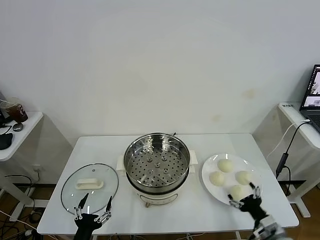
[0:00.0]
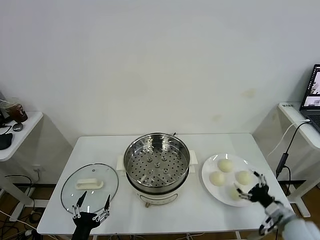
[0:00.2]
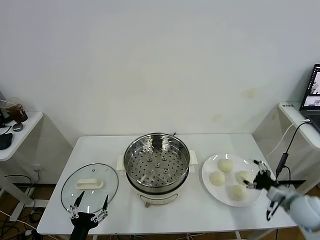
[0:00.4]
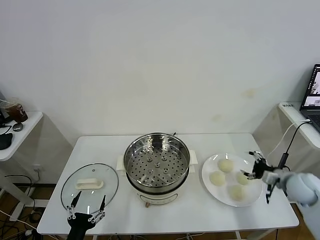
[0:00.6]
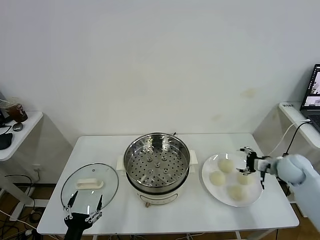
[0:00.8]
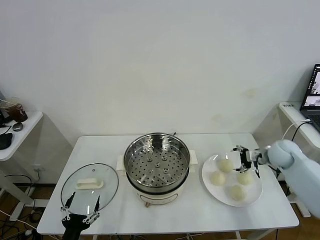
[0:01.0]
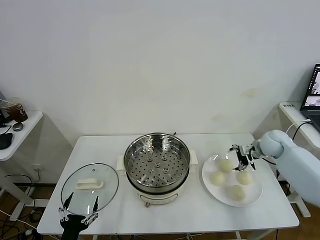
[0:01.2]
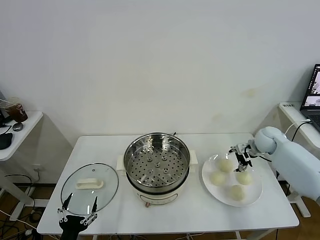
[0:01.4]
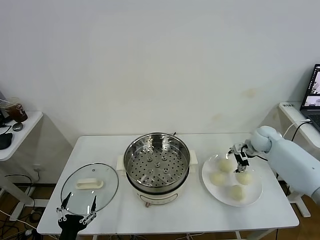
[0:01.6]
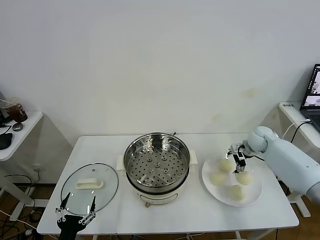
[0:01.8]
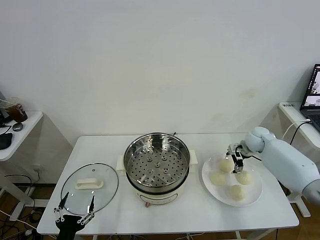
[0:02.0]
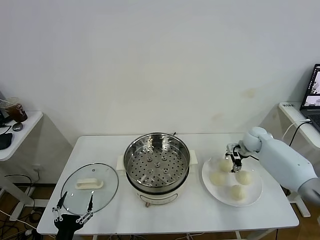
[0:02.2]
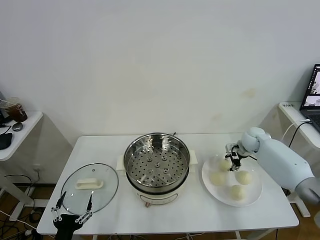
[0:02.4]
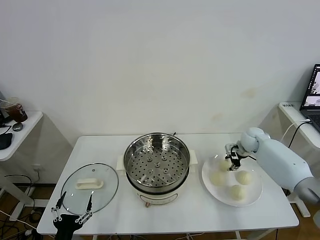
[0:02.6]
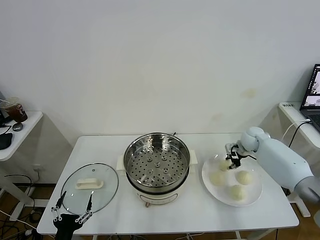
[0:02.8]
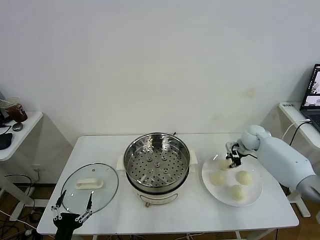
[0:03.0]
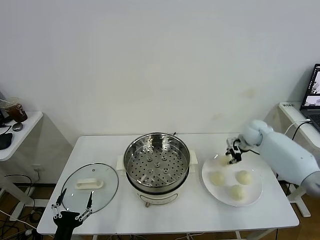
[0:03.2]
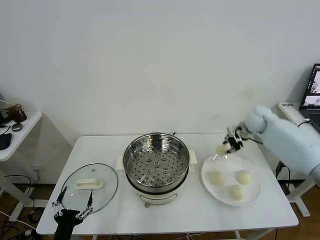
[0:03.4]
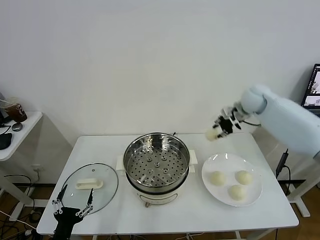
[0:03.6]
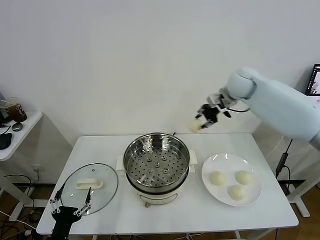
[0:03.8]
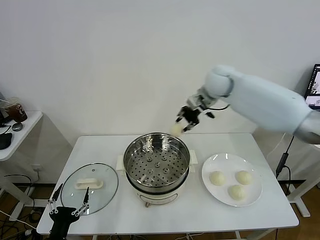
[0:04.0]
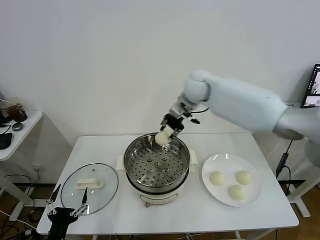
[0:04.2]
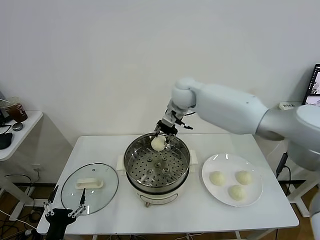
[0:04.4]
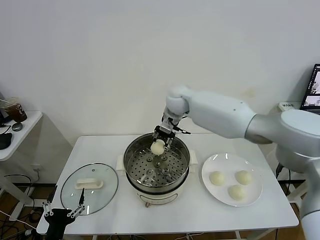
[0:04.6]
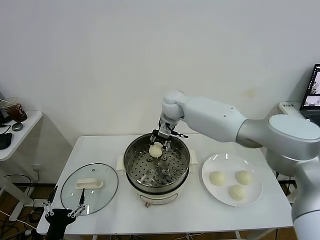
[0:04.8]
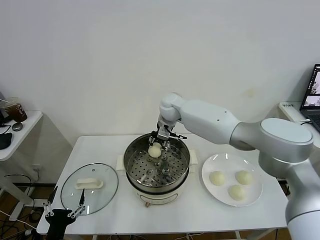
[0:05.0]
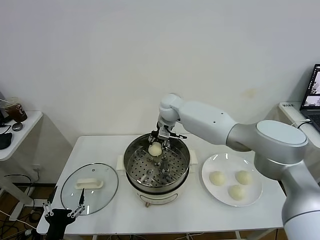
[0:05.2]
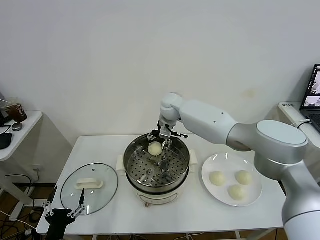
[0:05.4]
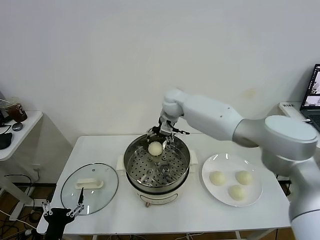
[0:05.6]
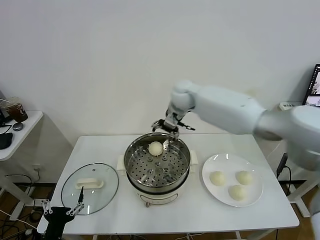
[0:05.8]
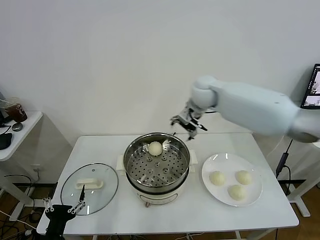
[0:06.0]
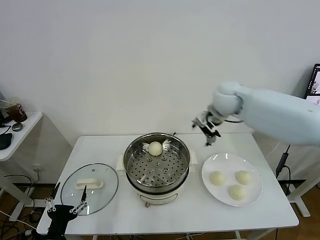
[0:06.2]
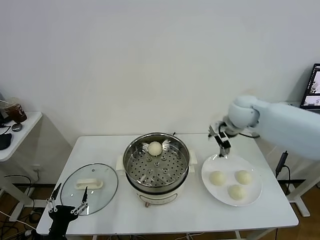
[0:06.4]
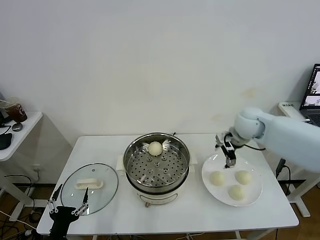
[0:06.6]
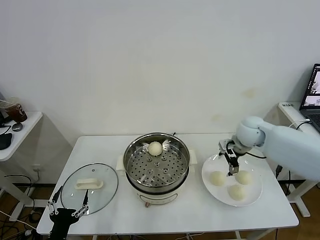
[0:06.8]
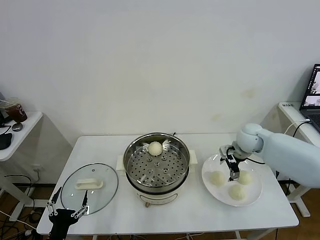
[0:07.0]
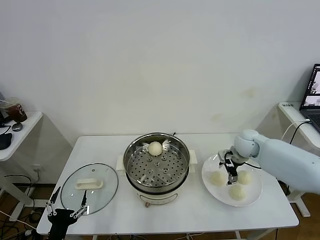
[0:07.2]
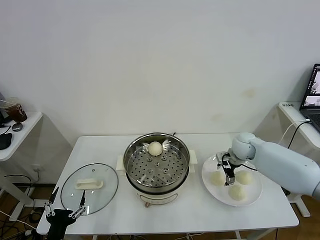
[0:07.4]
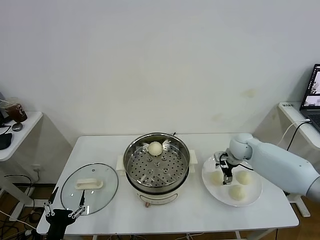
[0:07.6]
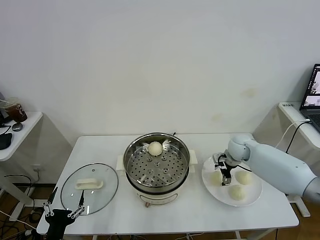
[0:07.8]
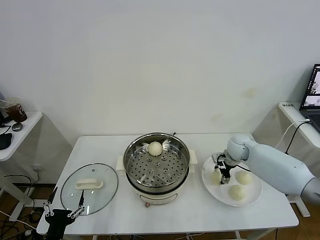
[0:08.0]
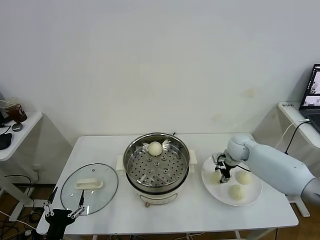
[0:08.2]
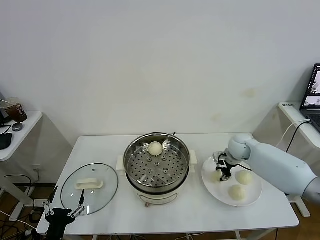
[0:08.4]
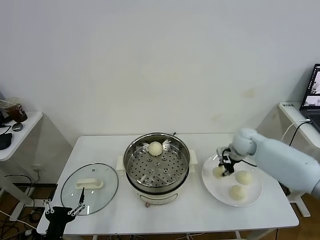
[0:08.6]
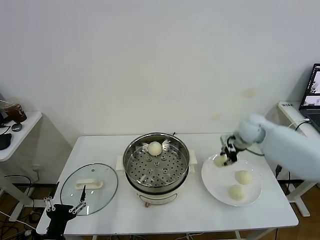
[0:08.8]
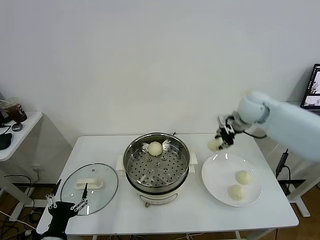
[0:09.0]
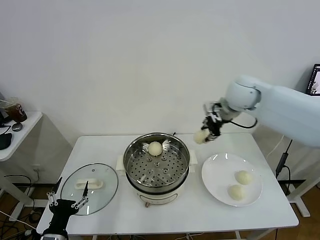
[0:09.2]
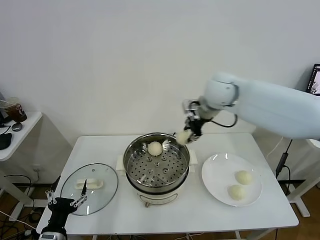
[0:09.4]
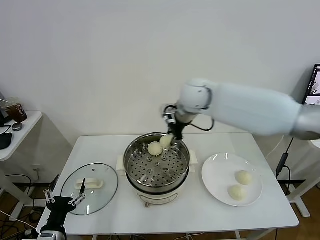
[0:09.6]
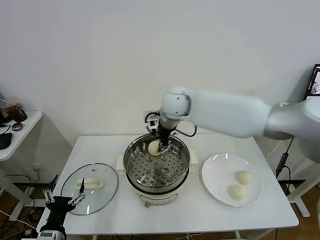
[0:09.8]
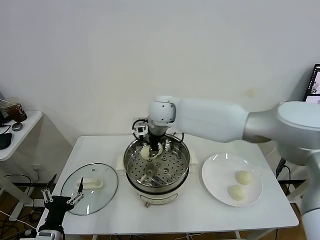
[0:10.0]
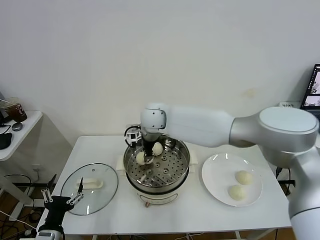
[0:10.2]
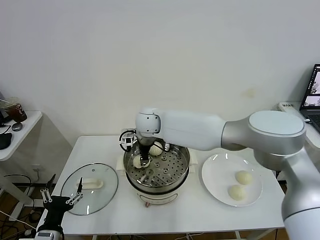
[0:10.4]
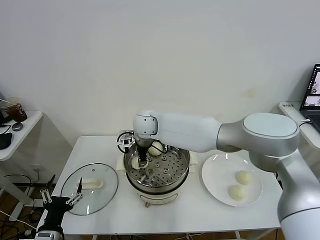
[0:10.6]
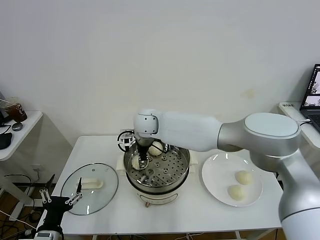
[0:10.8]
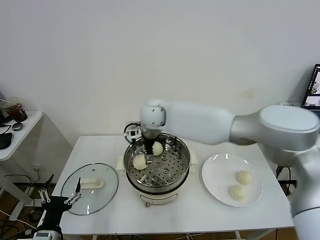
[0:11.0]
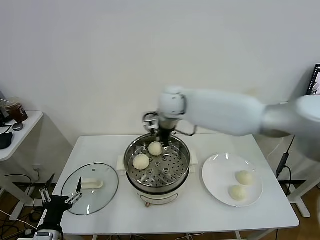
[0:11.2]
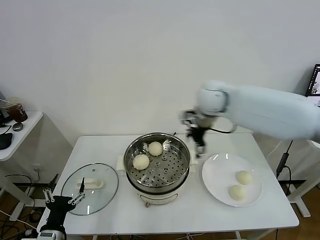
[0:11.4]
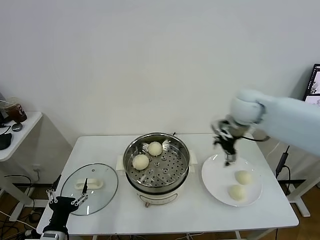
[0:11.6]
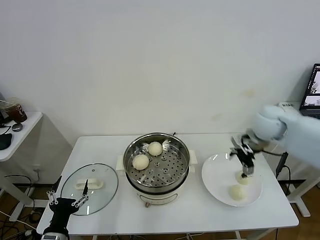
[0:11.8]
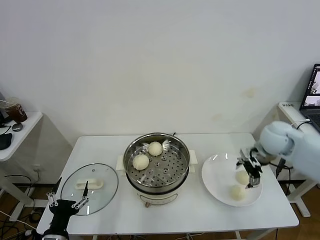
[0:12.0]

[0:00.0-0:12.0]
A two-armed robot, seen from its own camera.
Task of the whole recording: take steamed baozi put them in steamer.
Step, 0.0 to 2.6 s: Grasp the baozi in the plate with right gripper.
Step, 2.8 to 5.6 s: Place the baozi on the steamer with right gripper.
Step, 5.8 to 8.4 s: Grasp the baozi in the plate with right gripper.
Step, 8.6 to 10.8 s: Place the baozi on the steamer with right gripper.
1.6 to 3.0 s: The right gripper closes.
3.0 to 4.4 s: The right gripper heads to the left and upward, covering about 35 cm.
4.4 to 6.0 s: The right gripper heads to the right, covering about 10 cm, and opens its fingers.
6.0 to 7.6 s: The right gripper travels downward and to the right by roughly 25 cm.
7.6 to 9.0 s: The right gripper moves upward, roughly 20 cm, and closes up.
9.0 to 10.4 s: The right gripper is displaced to the left by roughly 30 cm.
10.4 to 12.0 s: The right gripper is displaced to the right by about 40 cm, and opens up.

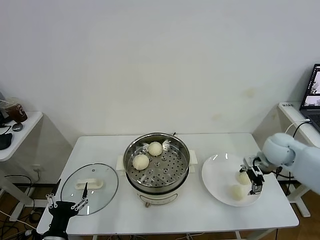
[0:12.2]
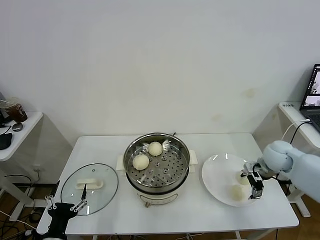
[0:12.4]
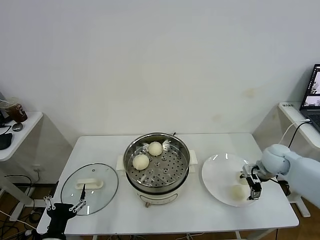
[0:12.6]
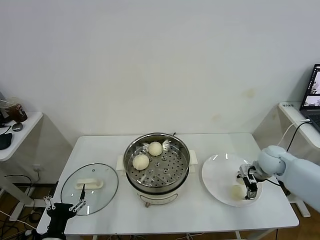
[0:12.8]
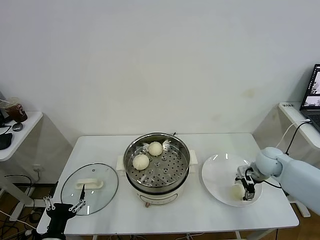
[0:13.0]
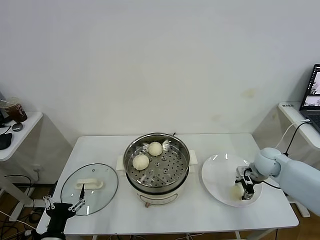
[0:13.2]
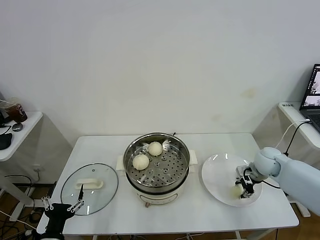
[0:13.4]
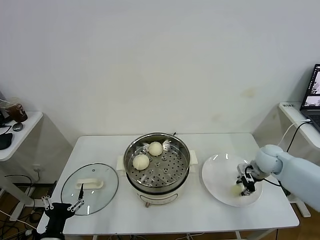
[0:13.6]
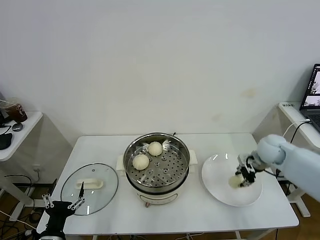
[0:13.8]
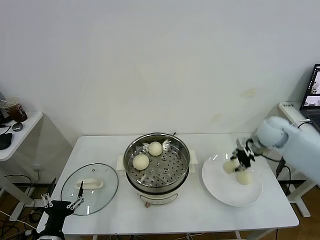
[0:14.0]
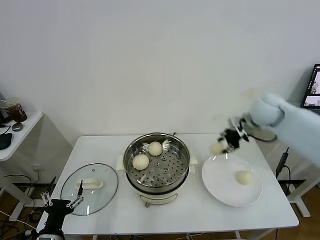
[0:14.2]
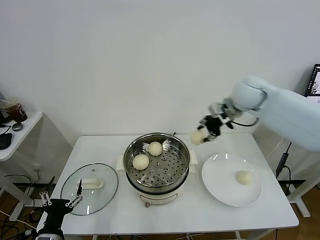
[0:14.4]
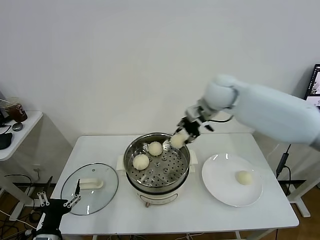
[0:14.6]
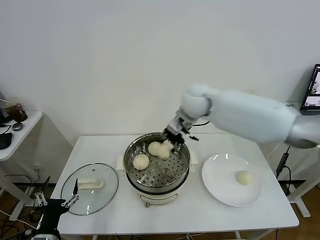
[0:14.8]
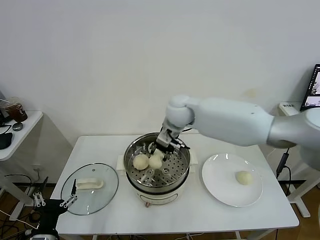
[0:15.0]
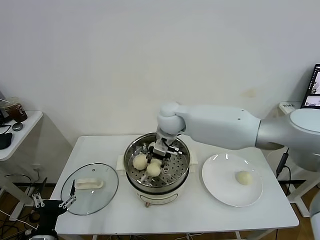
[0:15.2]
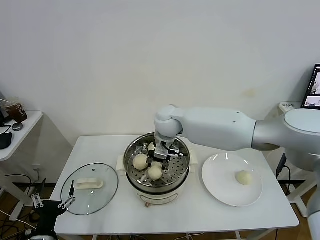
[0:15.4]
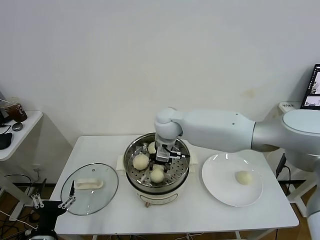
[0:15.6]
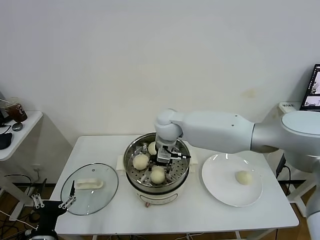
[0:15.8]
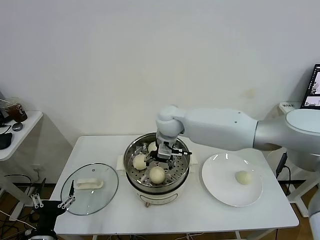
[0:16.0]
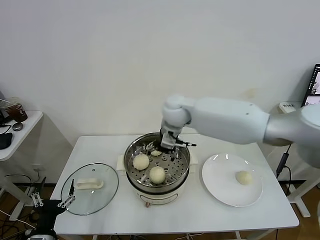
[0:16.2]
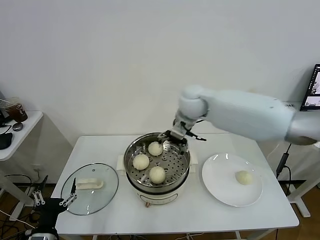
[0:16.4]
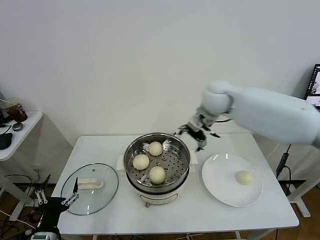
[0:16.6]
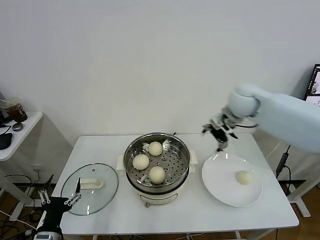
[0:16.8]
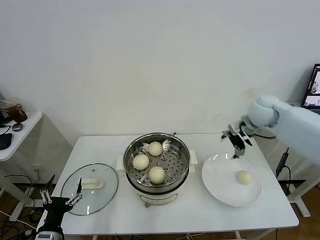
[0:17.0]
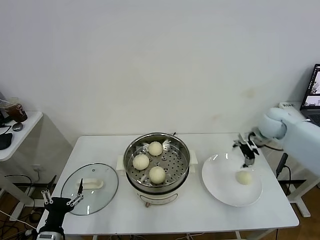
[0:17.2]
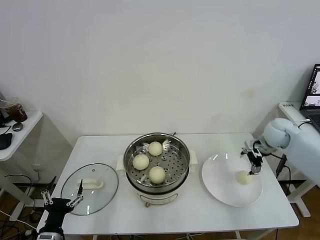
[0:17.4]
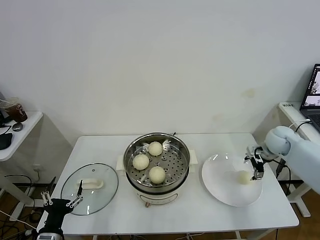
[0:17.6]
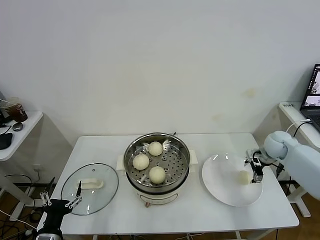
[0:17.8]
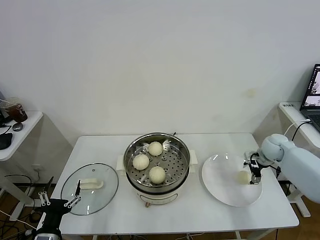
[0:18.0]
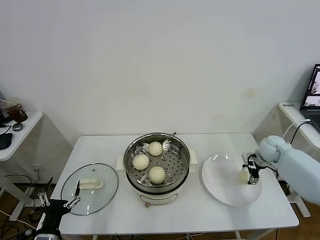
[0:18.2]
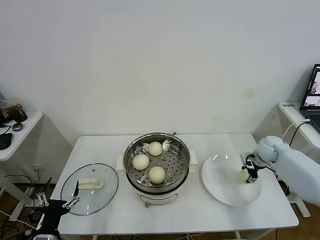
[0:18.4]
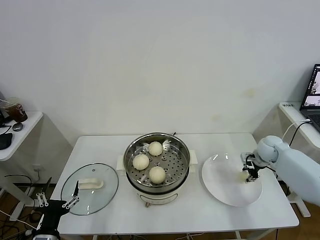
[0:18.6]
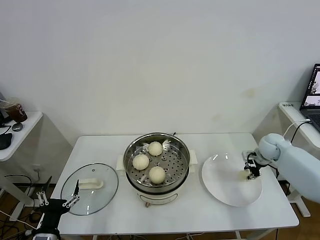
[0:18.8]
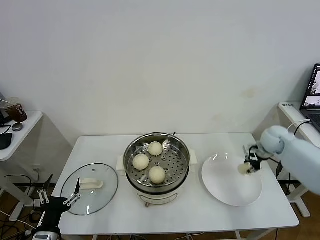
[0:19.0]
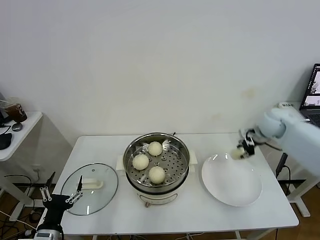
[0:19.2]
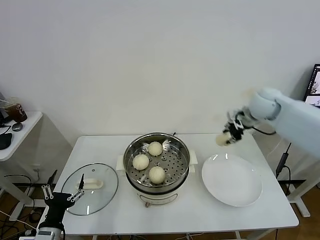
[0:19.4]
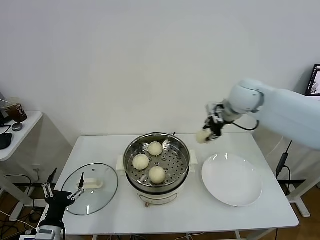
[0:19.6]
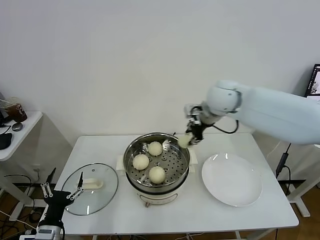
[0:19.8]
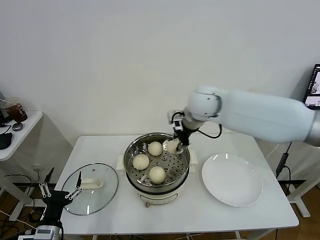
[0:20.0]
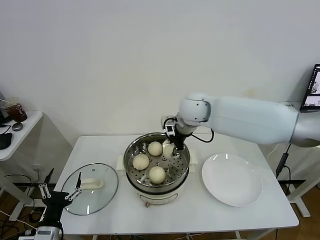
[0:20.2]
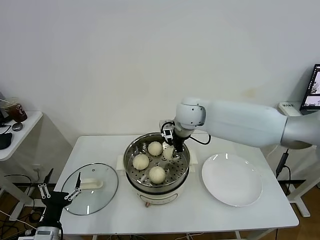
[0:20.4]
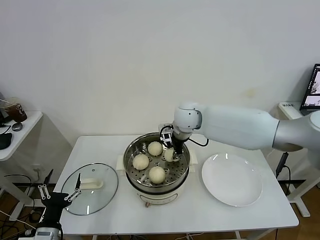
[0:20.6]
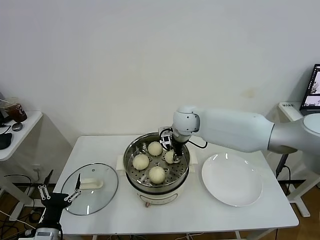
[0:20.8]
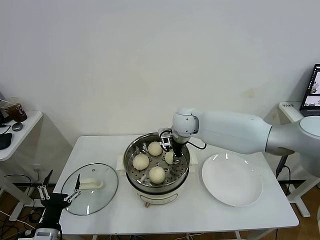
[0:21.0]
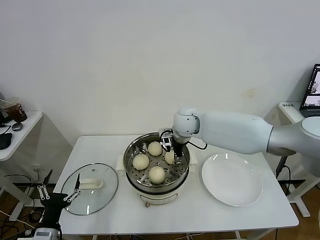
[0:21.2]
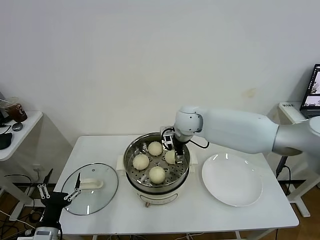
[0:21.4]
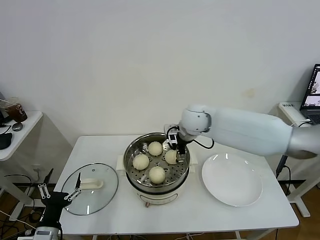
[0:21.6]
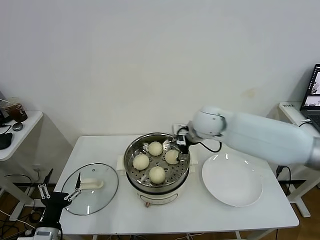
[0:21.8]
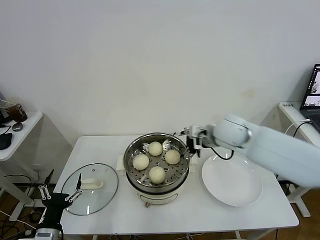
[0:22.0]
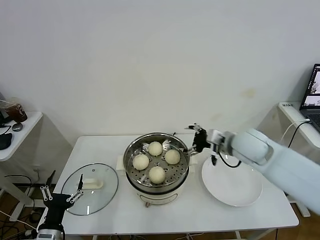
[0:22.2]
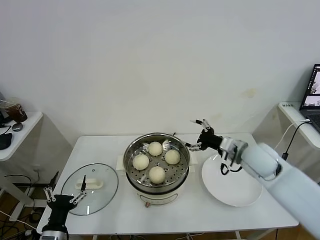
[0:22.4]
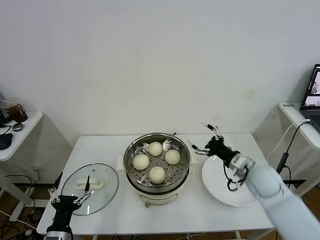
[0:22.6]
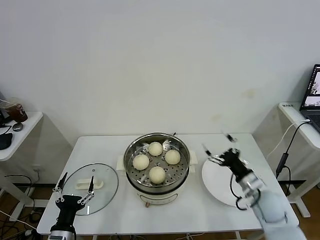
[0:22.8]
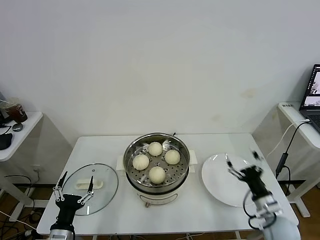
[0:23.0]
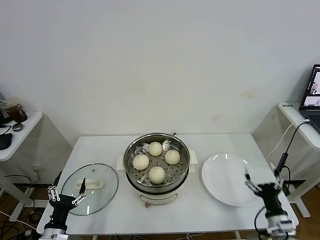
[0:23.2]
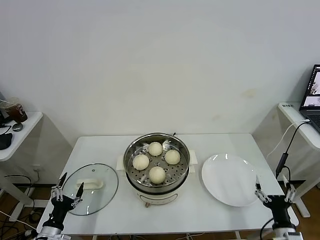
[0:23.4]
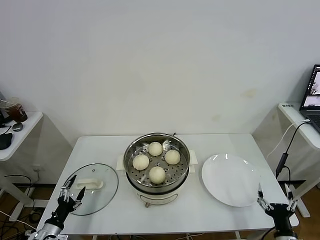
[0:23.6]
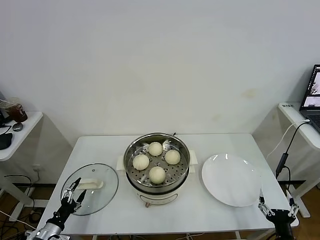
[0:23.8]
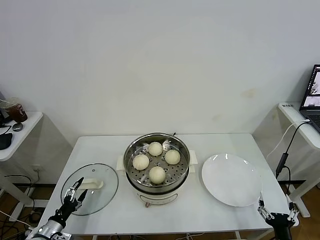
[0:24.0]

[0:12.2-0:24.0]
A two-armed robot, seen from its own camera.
Task of the whole recording: take steamed baozi put them in steamer.
Step, 12.2 to 13.6 s: Grasp the baozi in the plate with right gripper.
Step, 13.8 to 16.0 s: Place the baozi on the steamer with right gripper.
Step, 16.2 to 18.8 s: Grasp the baozi in the plate with right gripper.
Step, 19.0 to 21.6 s: Place the baozi on the steamer with right gripper.
12.2 to 13.6 s: The right gripper heads downward, covering about 5 cm, and closes up.
13.6 to 15.2 s: The right gripper is displaced to the left by about 35 cm.
15.2 to 16.6 s: The right gripper heads to the right and upward, covering roughly 15 cm, and opens up.
16.6 to 18.2 s: The right gripper shifts about 35 cm to the right and downward.
18.2 to 19.6 s: The right gripper goes some 30 cm upward and to the left, and closes up.
19.6 to 21.0 s: The right gripper goes some 20 cm to the left and downward.
21.0 to 22.6 s: The right gripper is displaced to the right and backward by roughly 30 cm, and opens up.
22.6 to 24.0 s: The left gripper moves to the left, downward and forward, about 15 cm, while the right gripper travels backward and downward by about 30 cm.
